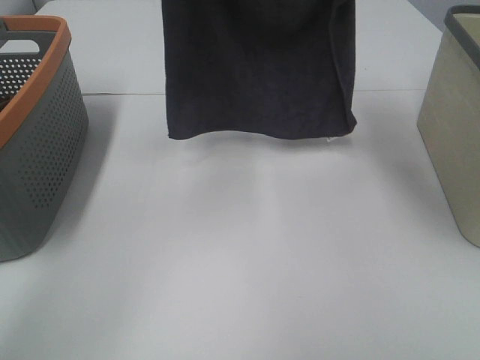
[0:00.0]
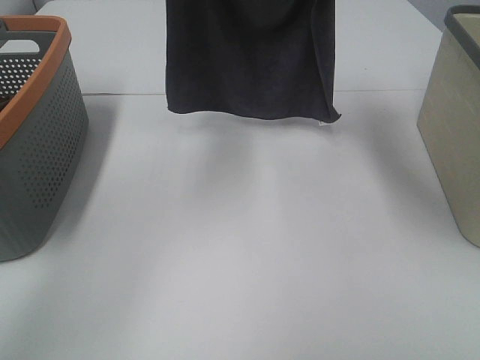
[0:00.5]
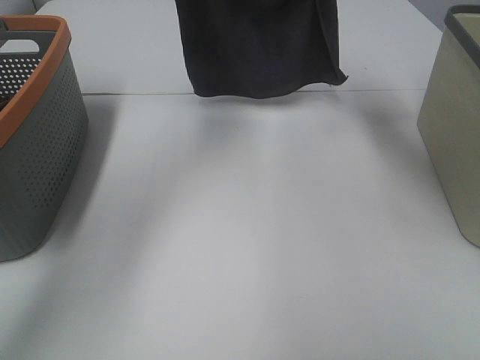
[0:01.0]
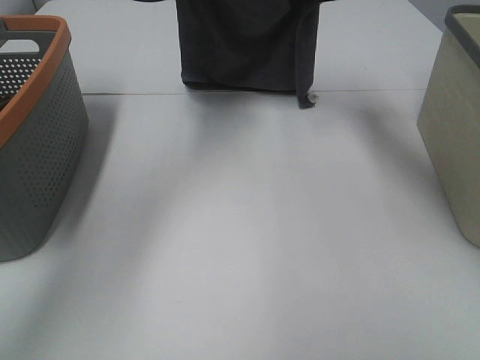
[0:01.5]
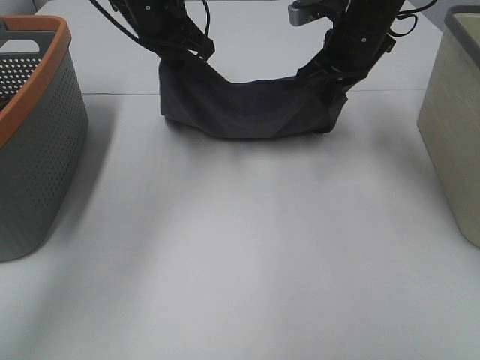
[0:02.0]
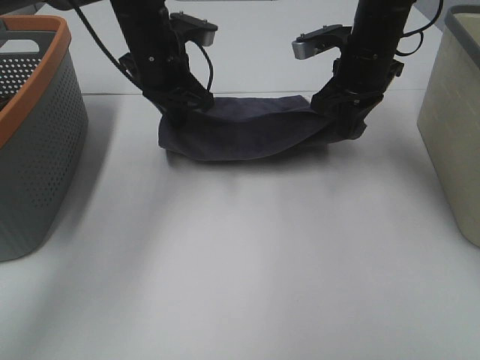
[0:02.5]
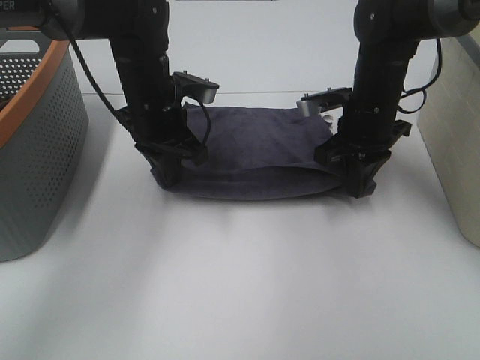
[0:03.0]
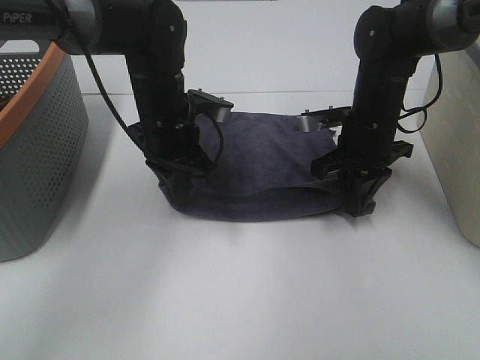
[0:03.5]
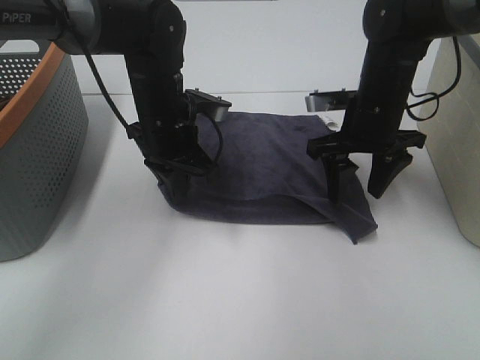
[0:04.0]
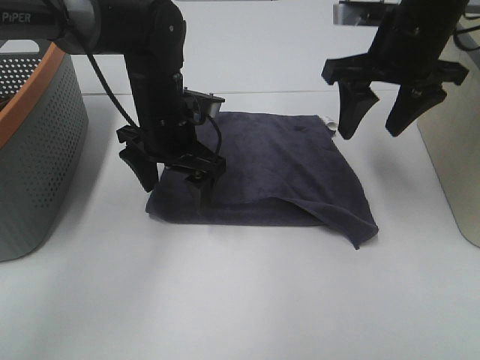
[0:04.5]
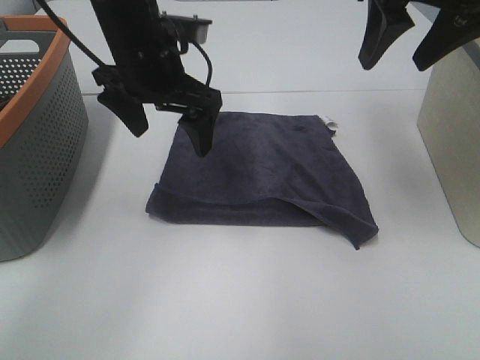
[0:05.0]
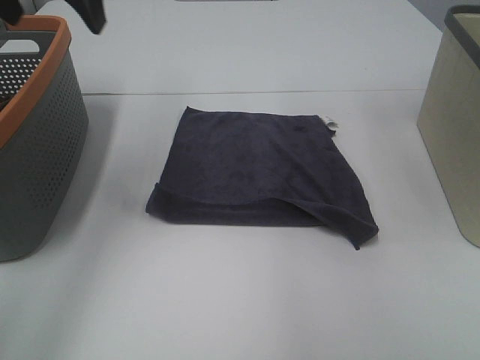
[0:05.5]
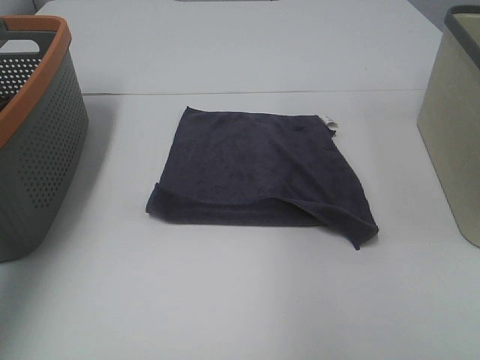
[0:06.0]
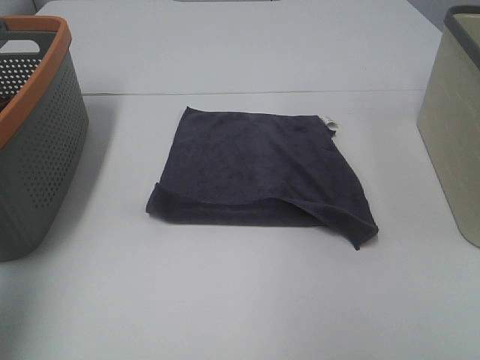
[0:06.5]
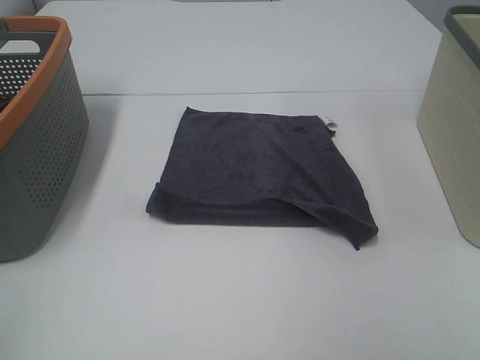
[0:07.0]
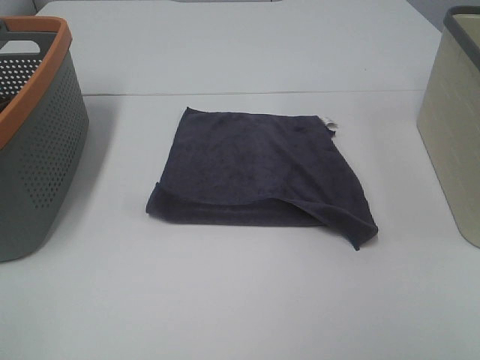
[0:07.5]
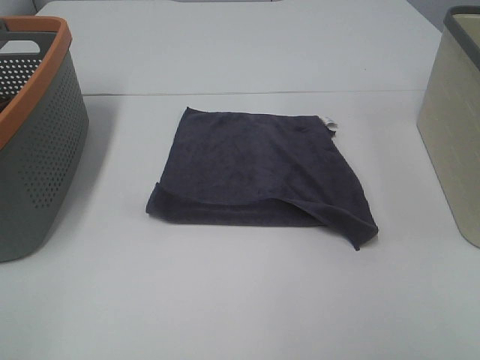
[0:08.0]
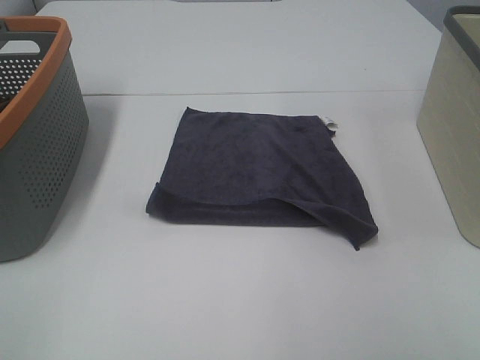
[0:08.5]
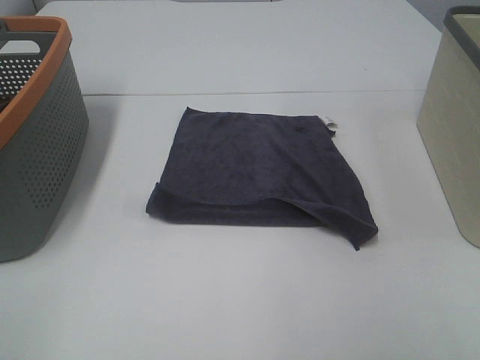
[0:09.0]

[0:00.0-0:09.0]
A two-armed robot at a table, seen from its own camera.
Task of the whole recording: Remove the towel and place it.
0:00.0 to 0:02.0: The left gripper travels downward by some 15 cm. The right gripper shifts about 15 cm downward and forward.
0:02.0 to 0:04.5: The left gripper moves downward and backward, about 15 cm, and opens. The right gripper moves backward and upward, some 10 cm, and opens.
0:04.5 to 0:07.0: The left gripper moves backward, to the left and upward, roughly 50 cm. Meanwhile the right gripper goes some 35 cm backward.

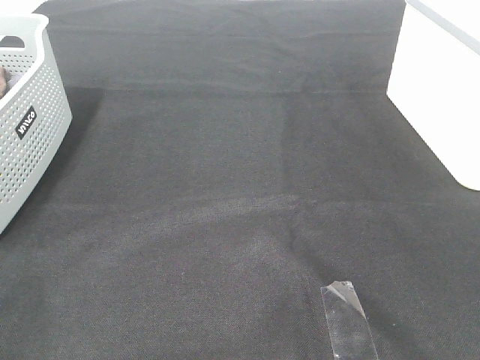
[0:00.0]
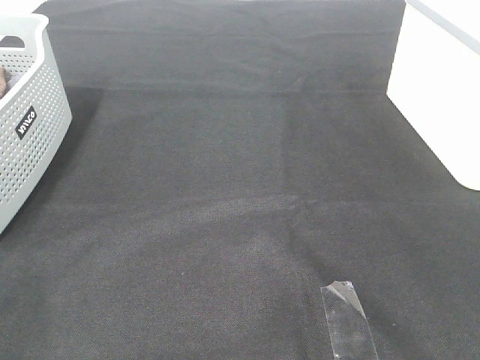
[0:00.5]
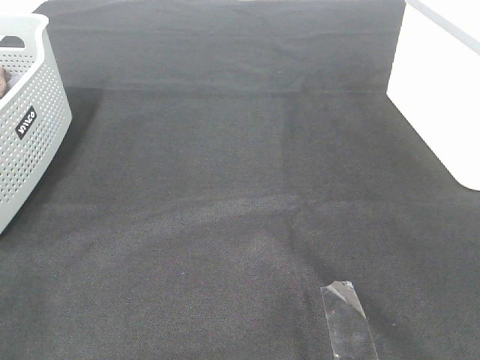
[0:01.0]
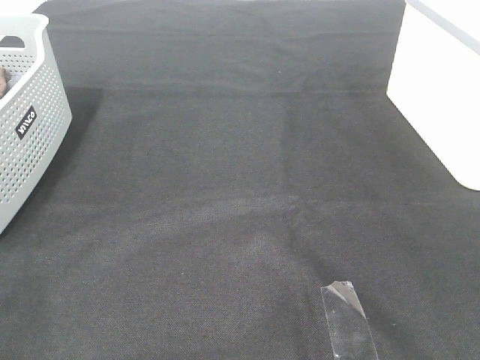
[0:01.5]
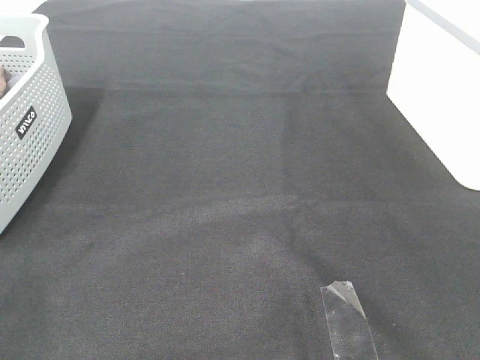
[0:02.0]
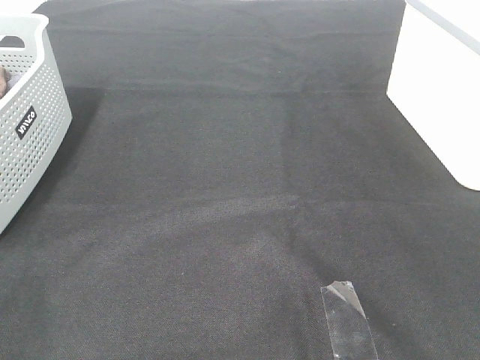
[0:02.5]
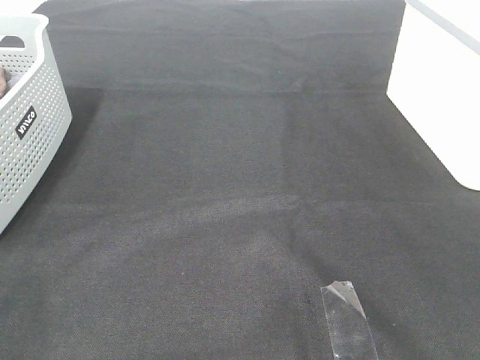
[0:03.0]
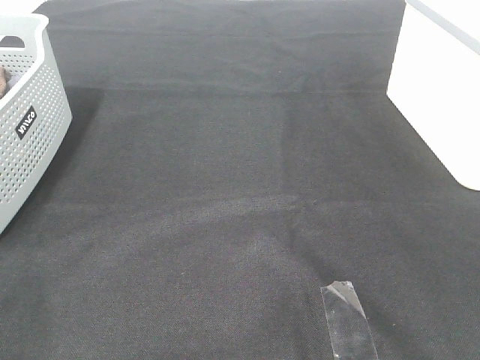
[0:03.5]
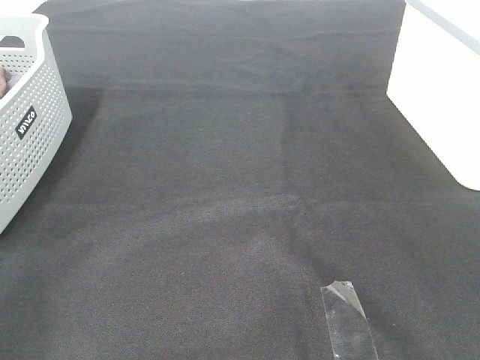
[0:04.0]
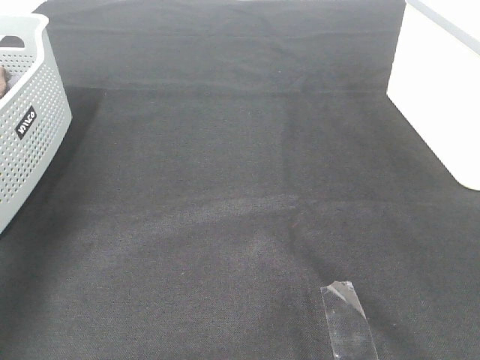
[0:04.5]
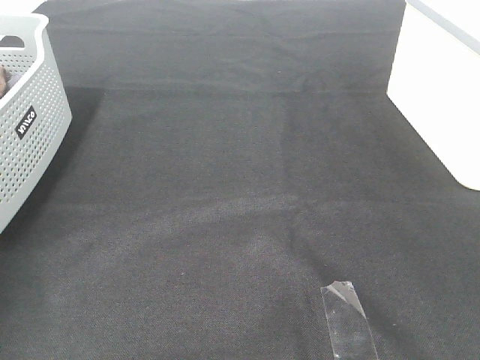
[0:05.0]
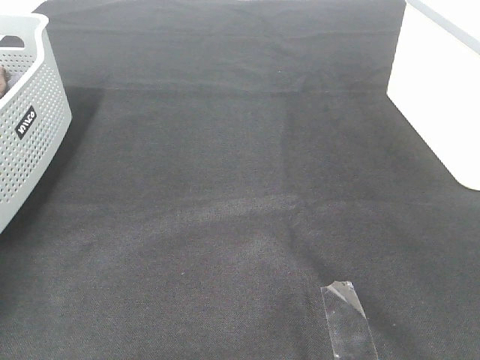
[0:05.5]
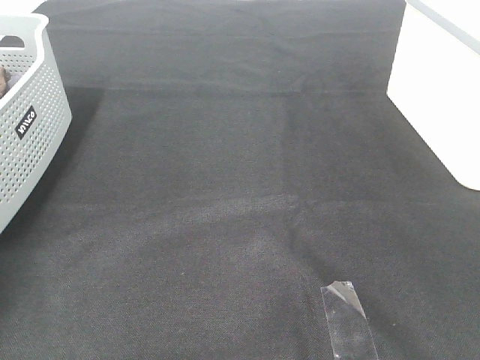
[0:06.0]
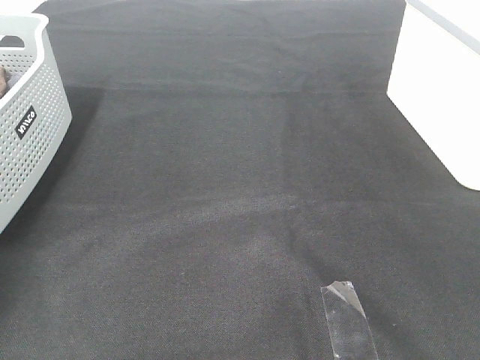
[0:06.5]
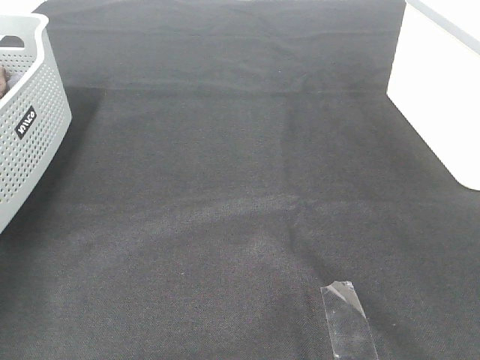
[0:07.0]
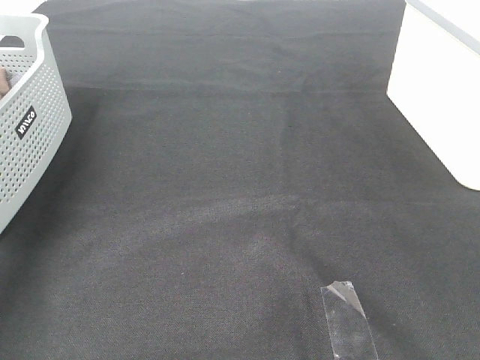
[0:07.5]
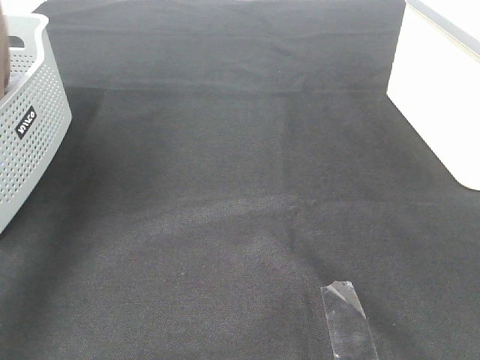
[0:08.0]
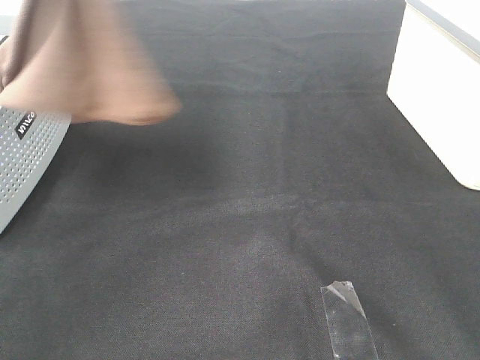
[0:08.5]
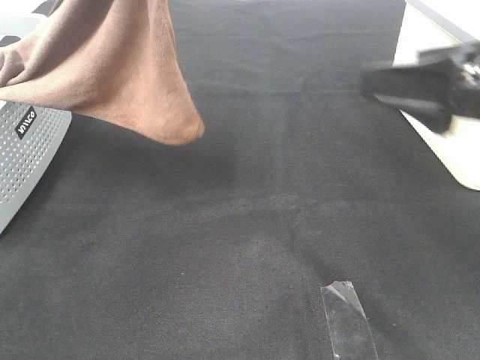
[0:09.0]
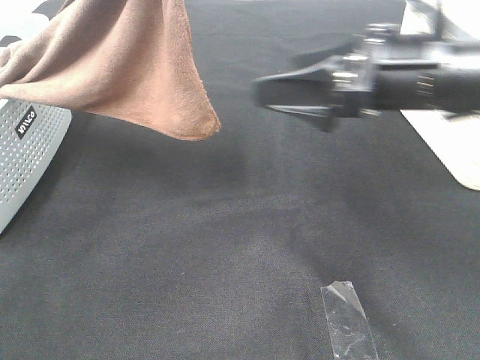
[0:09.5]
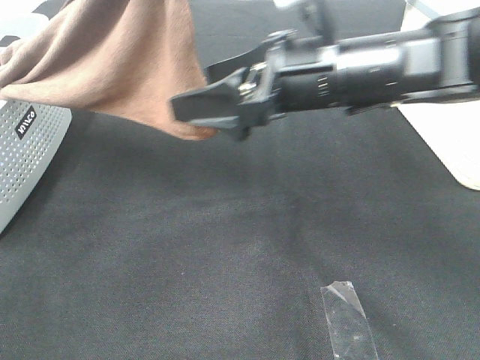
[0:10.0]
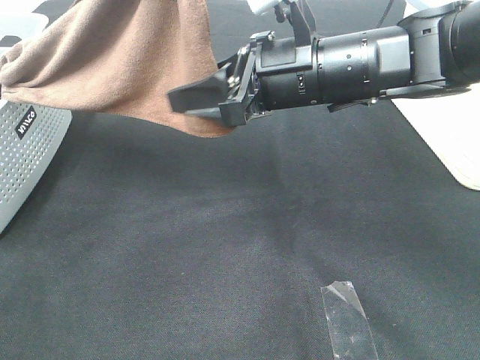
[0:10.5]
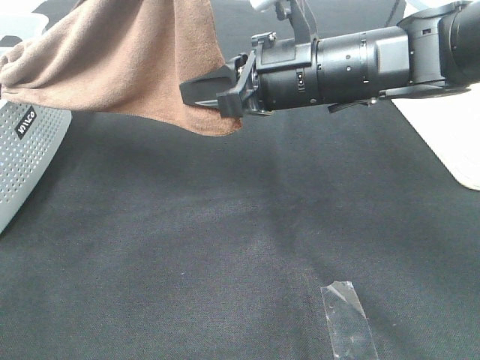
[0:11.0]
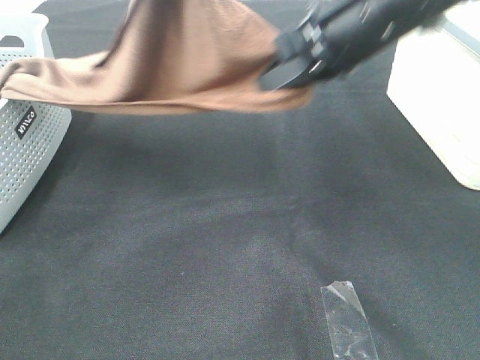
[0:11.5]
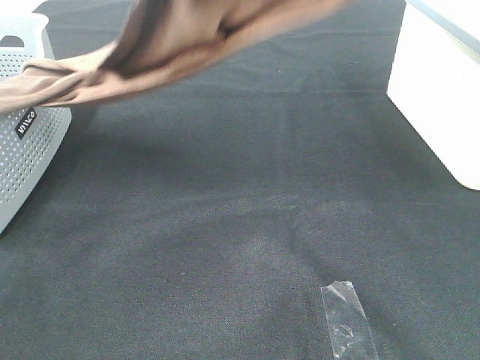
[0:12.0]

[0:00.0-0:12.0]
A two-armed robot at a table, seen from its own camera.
Task of the whole recording: Remove the towel and place it.
Step, 0:08.0 to 0:10.5: Right hand: grab a corner of the brown towel and straighten it.
0:04.0 to 0:06.0: The left gripper shifts approximately 40 cm forward, and closes up.
0:06.0 to 0:08.0: The left gripper goes about 30 cm upward, to the right and backward.
0:08.0 to 0:10.0: The right gripper shifts approximately 35 cm forward and to the left; the left gripper shifts some 15 cm to the right.
0:10.0 to 0:12.0: The right gripper goes approximately 20 cm upward, and closes its fingers.

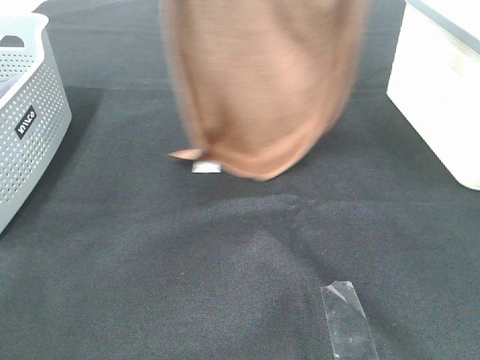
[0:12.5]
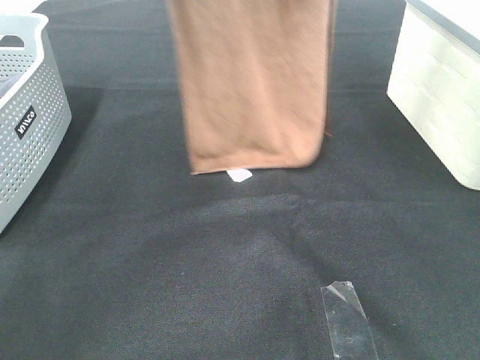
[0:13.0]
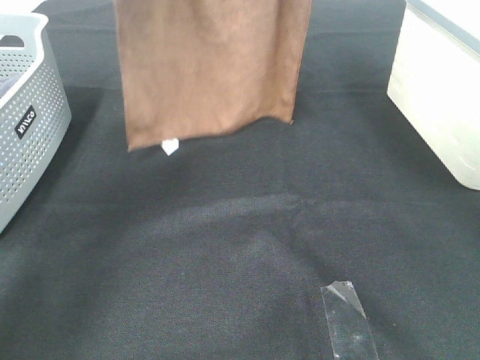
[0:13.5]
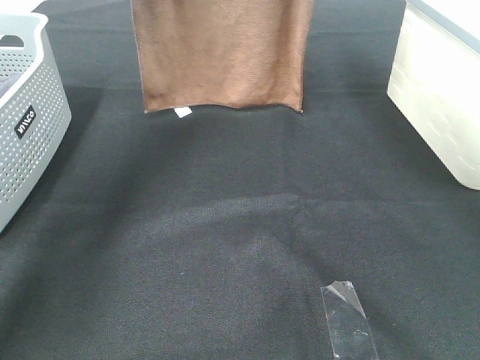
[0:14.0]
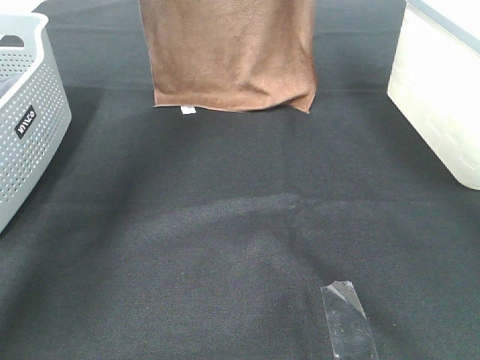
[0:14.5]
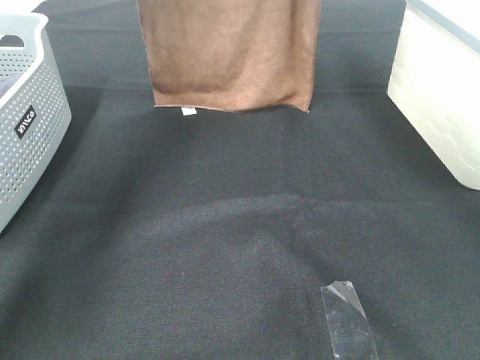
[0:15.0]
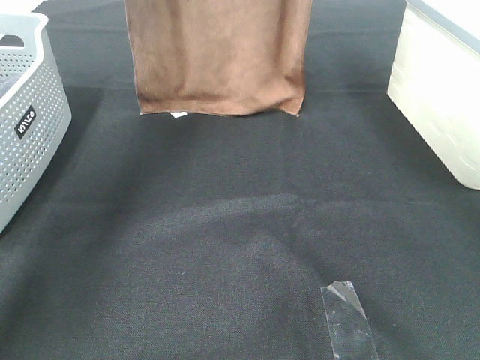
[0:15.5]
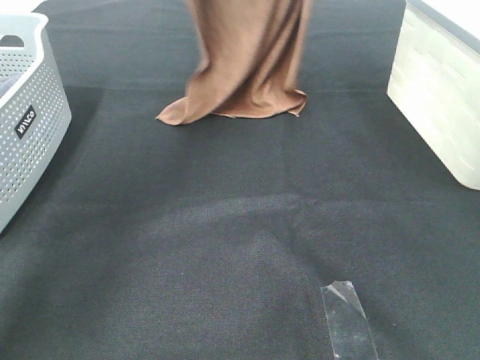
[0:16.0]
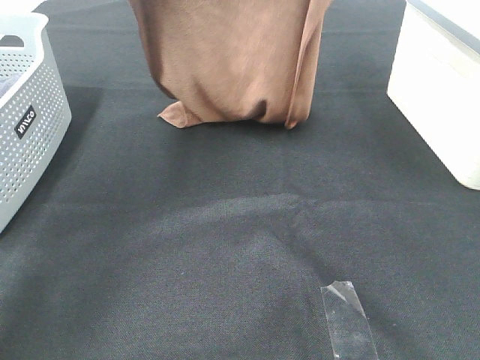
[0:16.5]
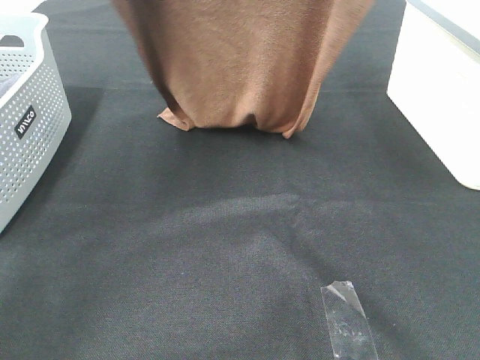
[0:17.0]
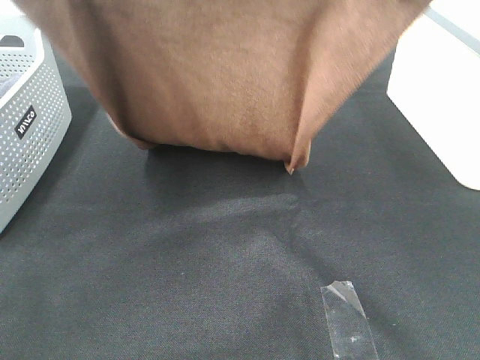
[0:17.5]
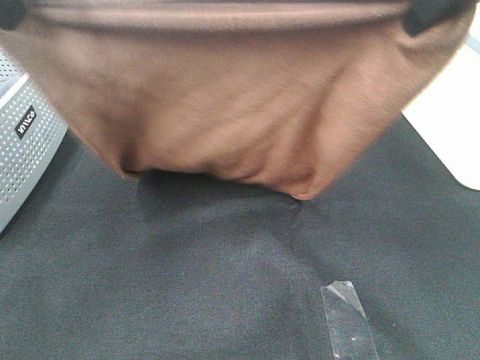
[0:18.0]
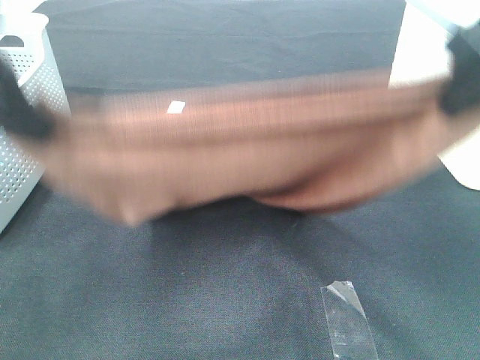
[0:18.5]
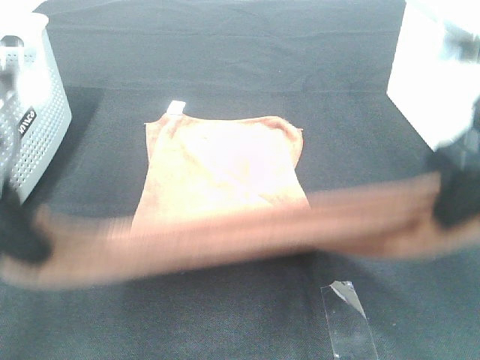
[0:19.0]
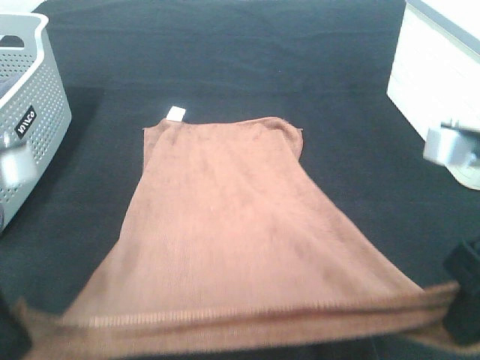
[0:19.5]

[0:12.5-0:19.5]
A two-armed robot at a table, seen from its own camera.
Task of the whole recording: Remove the towel and place it.
Step, 0:12.5 to 0:18.0: Left hand: spread the brown towel flat on the table.
Step, 0:12.5 to 0:18.0: Right hand: spread the brown towel flat on the table.
0:12.5 to 0:14.5: The left gripper goes roughly 15 cm forward. The right gripper shifts approximately 15 cm forward and downward.
0:14.5 to 0:16.0: The right gripper moves backward, approximately 5 cm; the left gripper changes place by approximately 5 cm.
0:16.0 to 0:17.5: The two grippers go approximately 20 cm backward.
0:17.5 to 0:19.5: Both grippers travel together downward and backward, some 25 cm.
